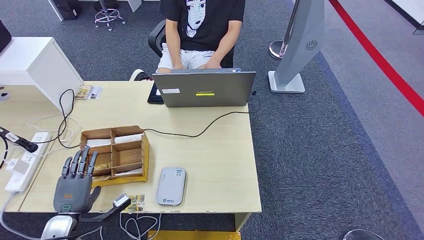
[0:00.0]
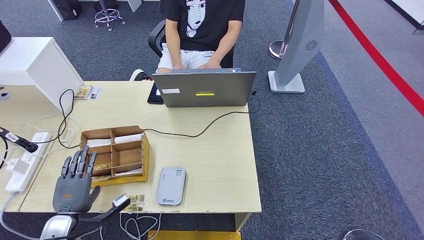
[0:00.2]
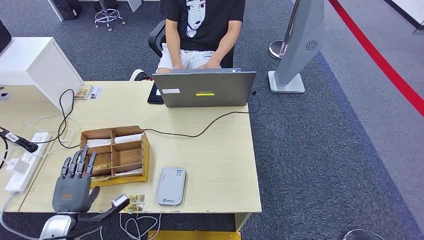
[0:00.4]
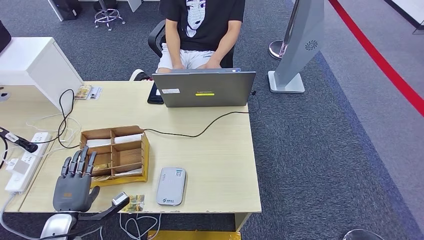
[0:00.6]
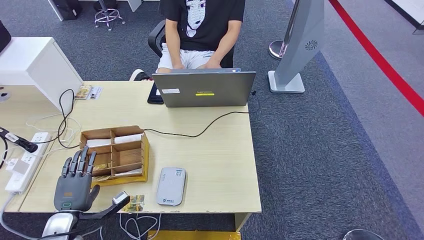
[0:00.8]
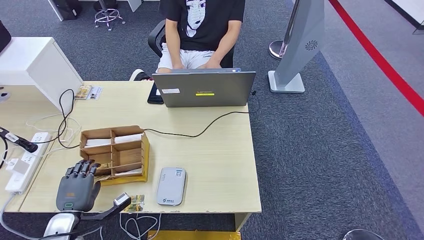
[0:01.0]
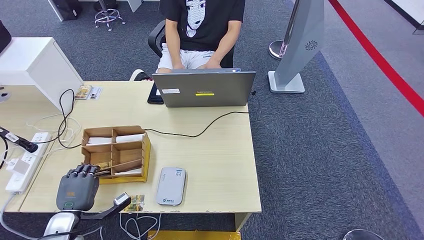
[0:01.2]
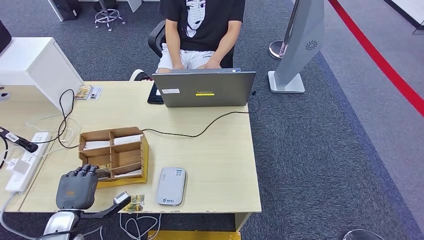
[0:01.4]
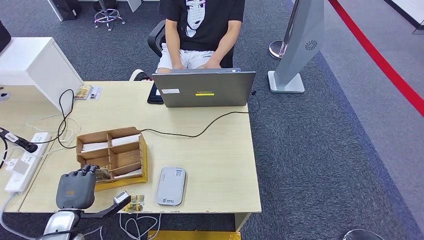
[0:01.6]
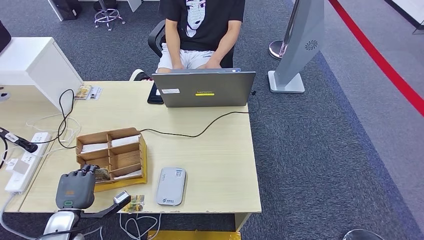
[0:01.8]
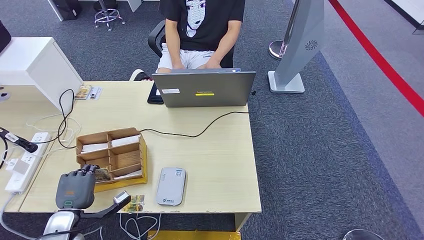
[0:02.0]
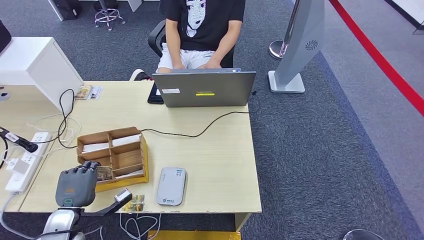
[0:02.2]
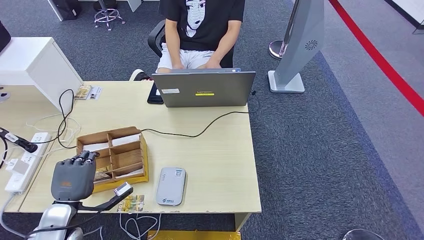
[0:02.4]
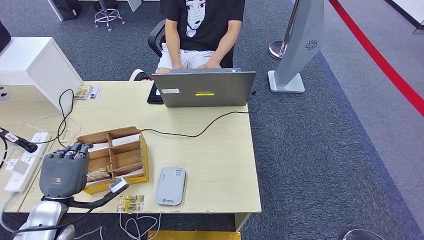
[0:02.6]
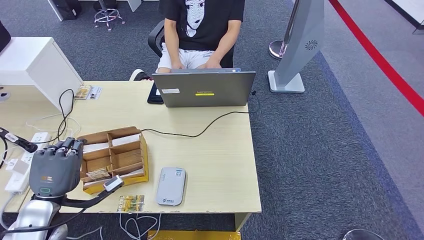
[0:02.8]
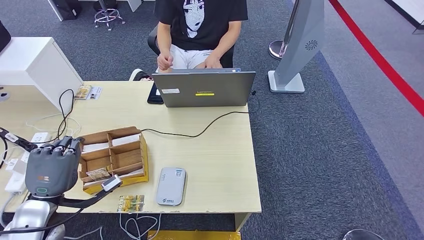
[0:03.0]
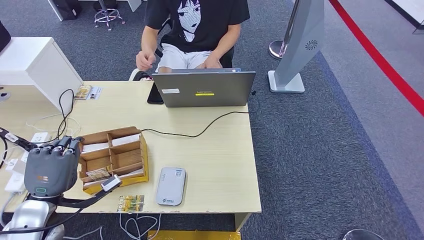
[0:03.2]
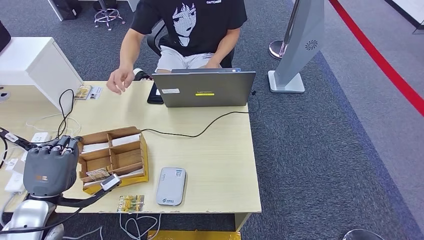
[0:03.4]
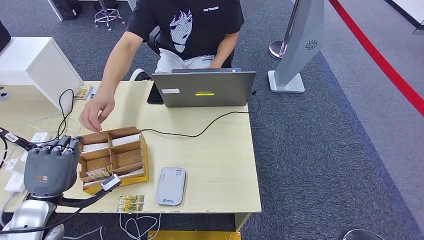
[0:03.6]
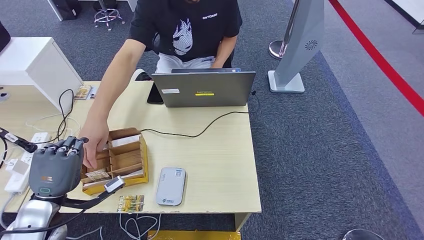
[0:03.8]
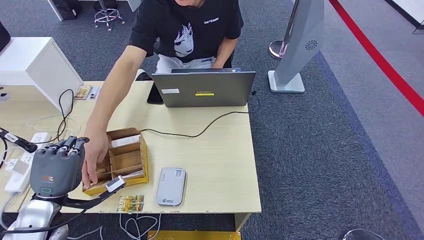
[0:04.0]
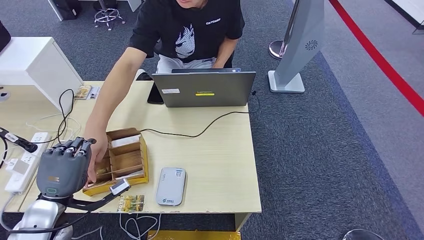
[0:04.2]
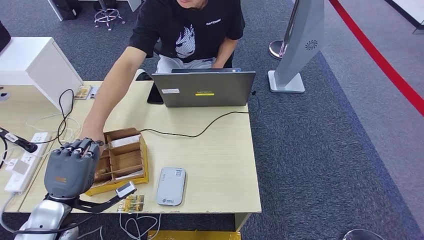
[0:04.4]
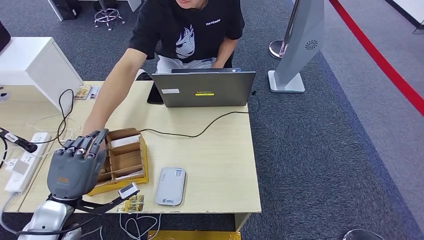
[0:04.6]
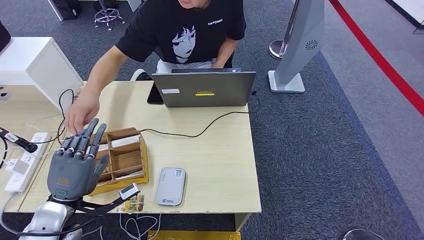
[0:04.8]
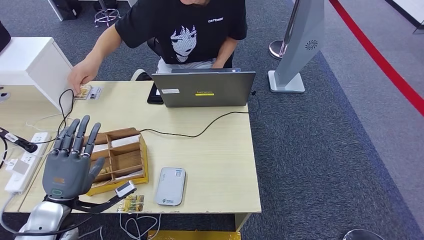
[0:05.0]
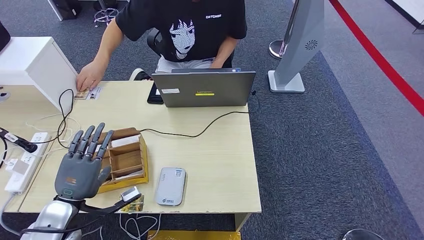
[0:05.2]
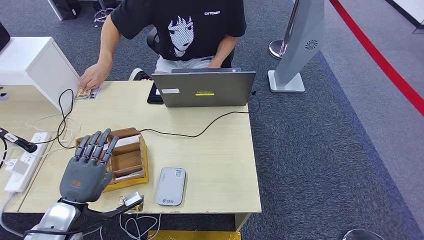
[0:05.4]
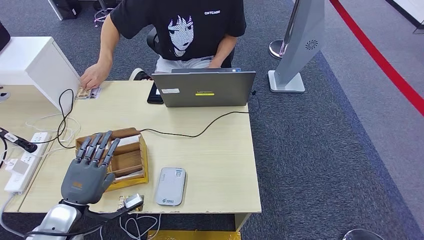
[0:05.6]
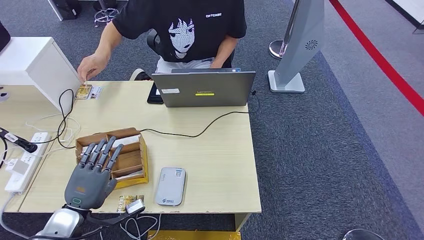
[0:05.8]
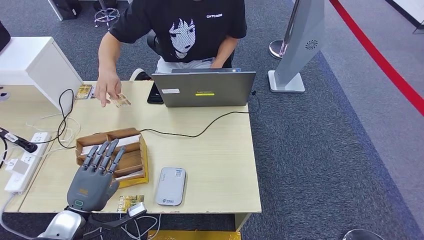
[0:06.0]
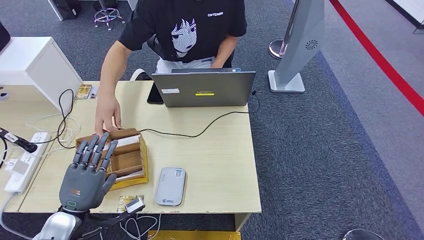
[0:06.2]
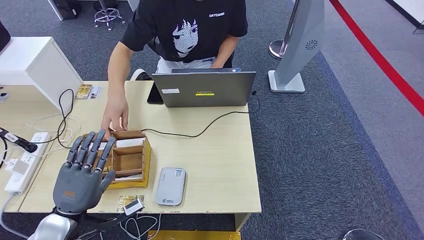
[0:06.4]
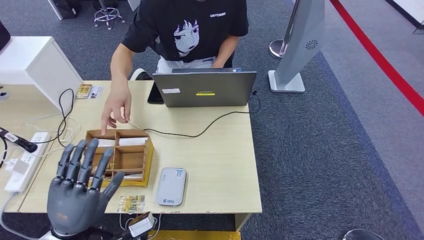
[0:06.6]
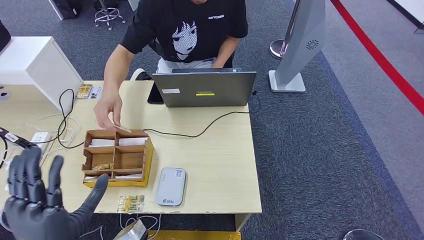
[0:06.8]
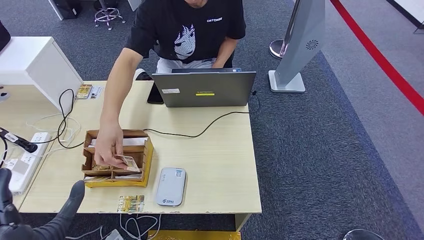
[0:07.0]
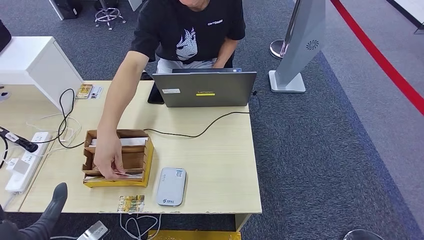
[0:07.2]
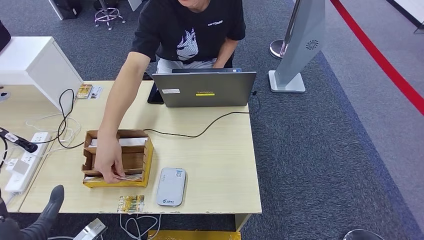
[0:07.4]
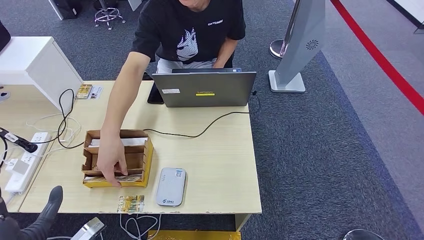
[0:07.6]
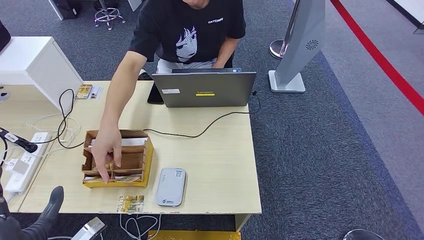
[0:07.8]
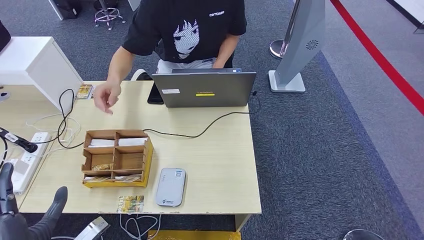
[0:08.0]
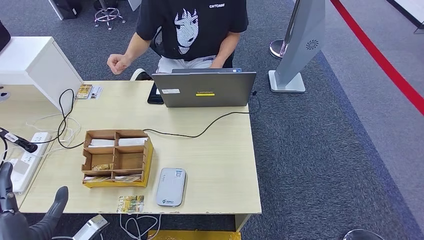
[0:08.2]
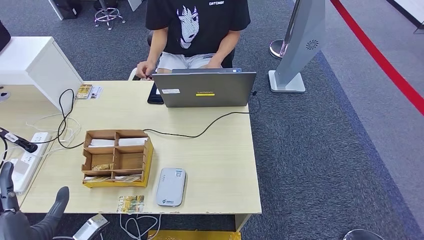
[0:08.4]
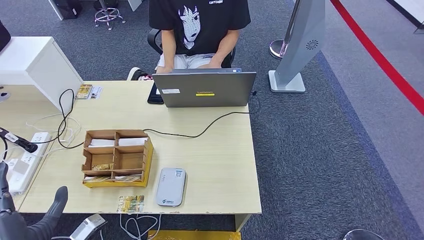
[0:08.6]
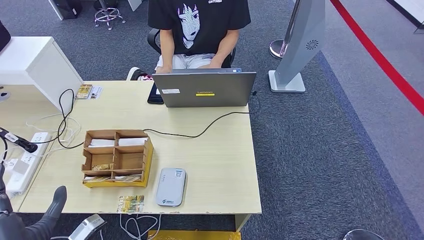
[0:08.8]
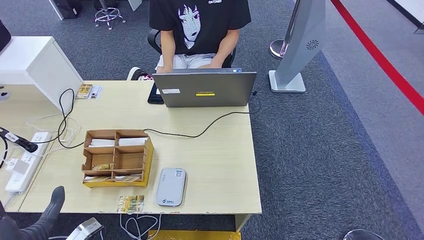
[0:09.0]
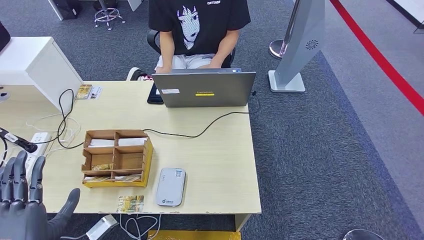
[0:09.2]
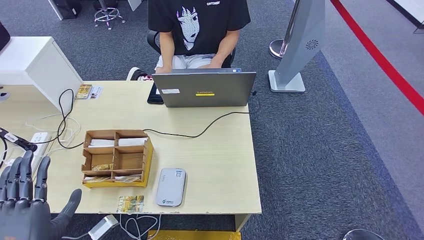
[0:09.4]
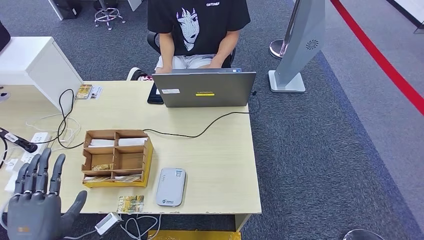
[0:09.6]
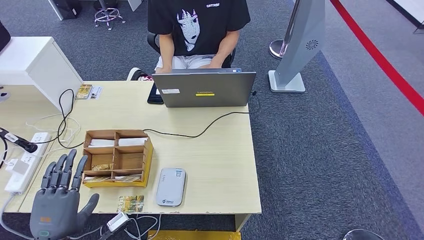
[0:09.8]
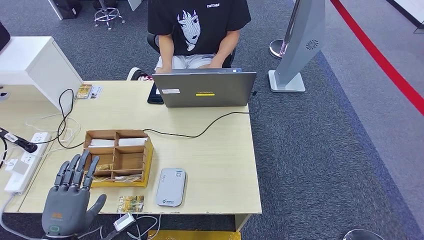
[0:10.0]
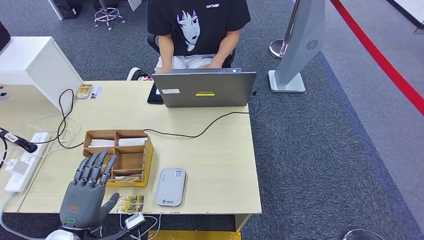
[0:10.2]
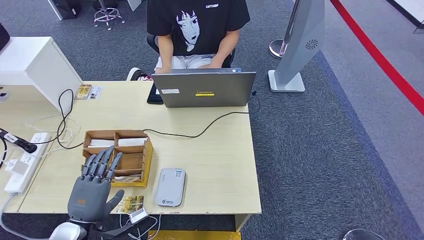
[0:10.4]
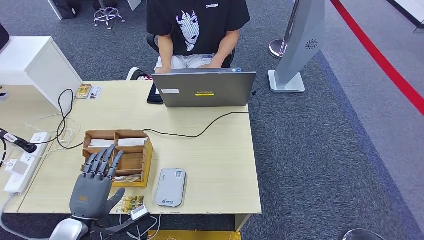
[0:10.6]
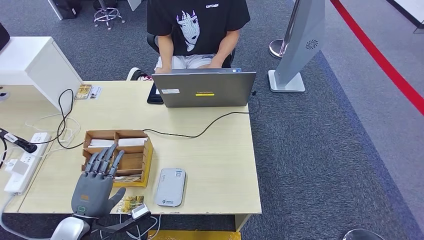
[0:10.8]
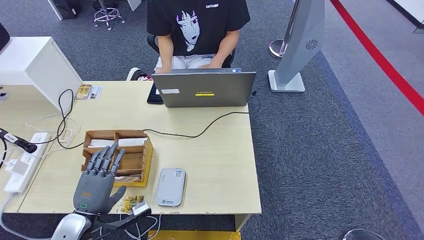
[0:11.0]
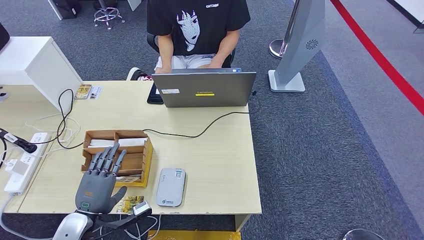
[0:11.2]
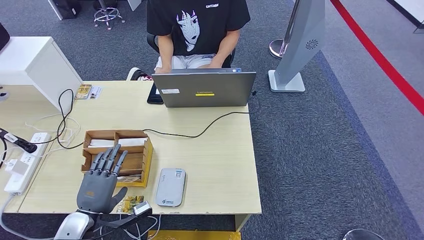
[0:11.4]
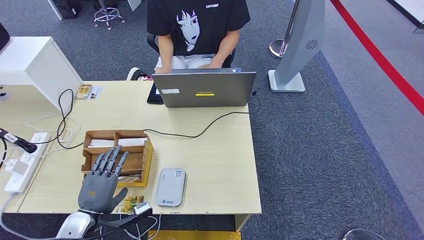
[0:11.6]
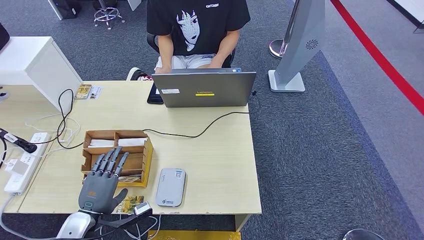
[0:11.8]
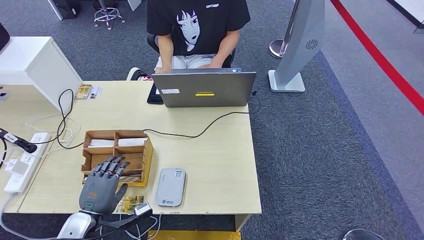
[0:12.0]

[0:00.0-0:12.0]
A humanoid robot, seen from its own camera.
0:00.0 to 0:01.6: The hands make only small movements.
0:01.6 to 0:03.0: The left hand is displaced upward by roughly 10 cm.
0:03.0 to 0:04.4: The hands stay close to where they were, moving slightly.
0:04.4 to 0:06.0: The hands stay close to where they were, moving slightly.
0:06.0 to 0:07.6: The left hand travels backward and upward by about 10 cm.
0:07.6 to 0:09.0: Both hands stay about where they are.
0:09.0 to 0:10.4: The left hand heads downward and forward, covering roughly 10 cm.
0:10.4 to 0:12.0: The hands stay close to where they were, moving slightly.

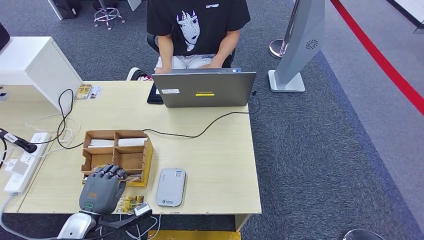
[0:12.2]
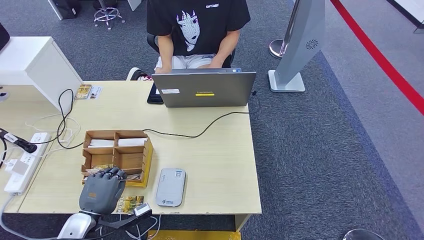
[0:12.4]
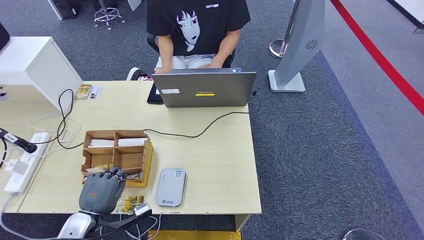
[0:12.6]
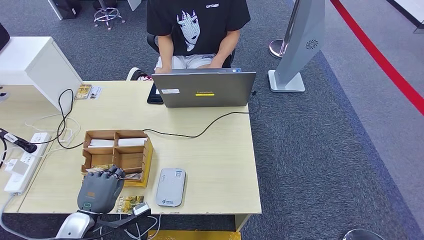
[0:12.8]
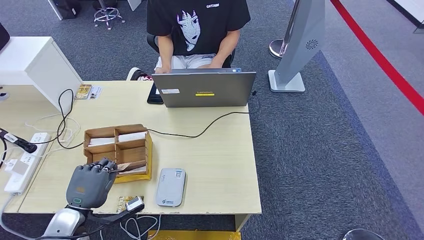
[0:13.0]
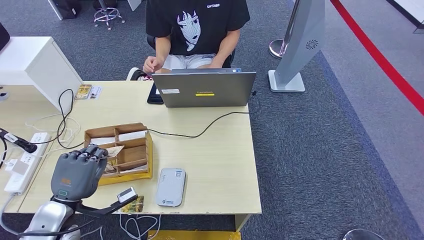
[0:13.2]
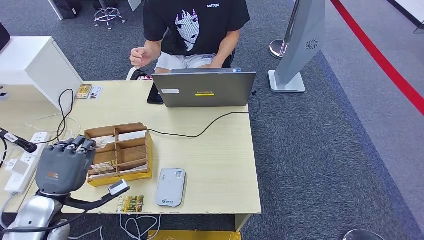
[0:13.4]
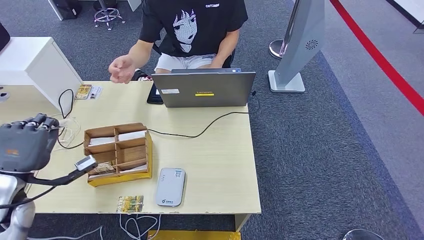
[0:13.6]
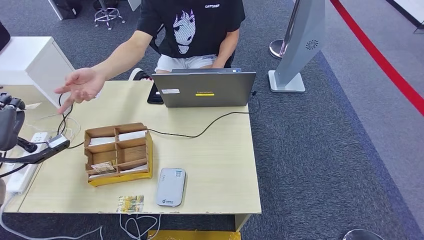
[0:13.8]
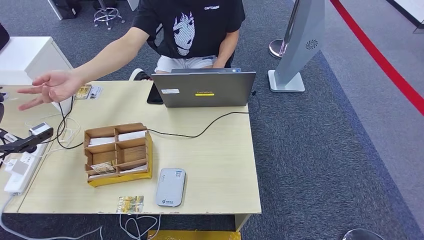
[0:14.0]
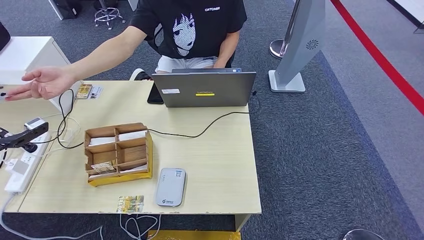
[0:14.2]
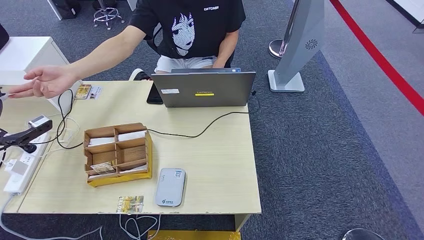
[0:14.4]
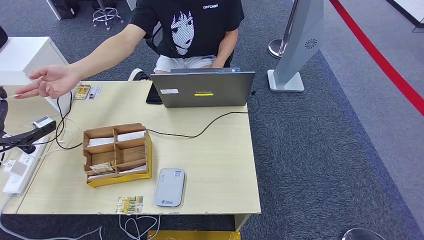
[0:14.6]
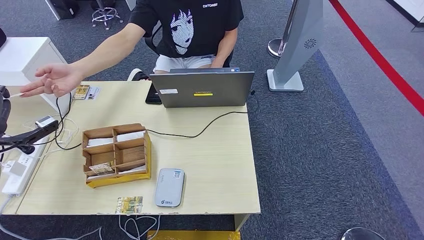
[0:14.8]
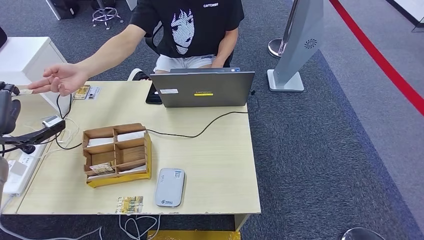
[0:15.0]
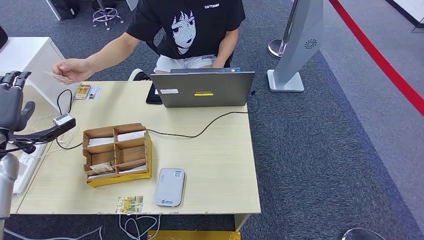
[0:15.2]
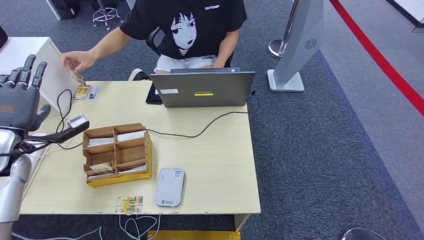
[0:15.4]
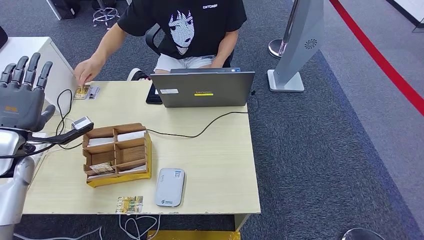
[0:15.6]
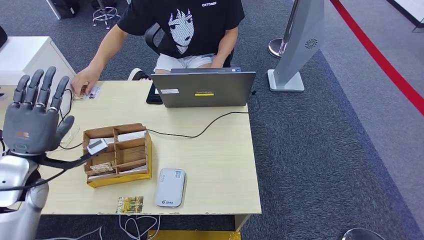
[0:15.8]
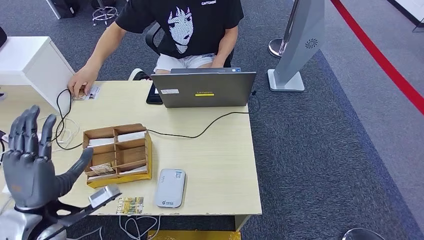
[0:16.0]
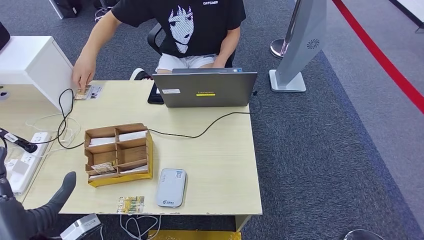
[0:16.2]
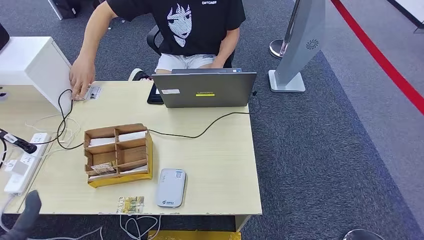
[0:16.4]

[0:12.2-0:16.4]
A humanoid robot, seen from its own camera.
Step, 0:13.2 to 0:16.2: Hand the room key to the person.
0:12.2 to 0:13.6: The left hand moves upward and to the left, some 15 cm.
0:13.6 to 0:15.0: The left hand shifts roughly 10 cm forward and to the left.
0:15.0 to 0:16.4: The left hand goes roughly 25 cm backward and to the right.
